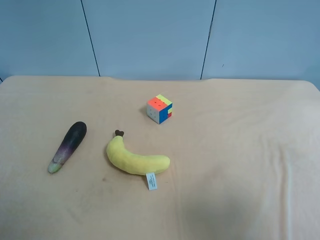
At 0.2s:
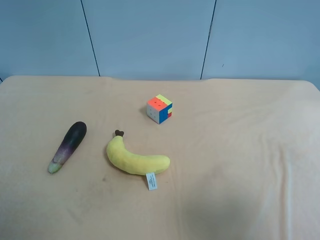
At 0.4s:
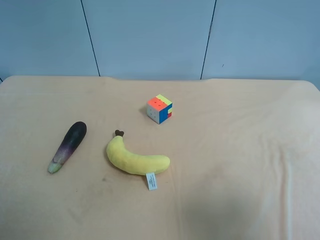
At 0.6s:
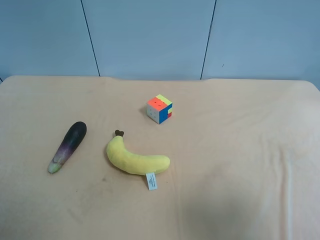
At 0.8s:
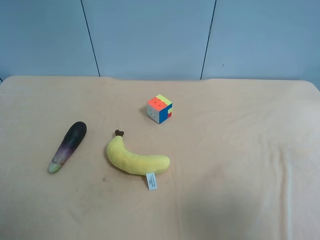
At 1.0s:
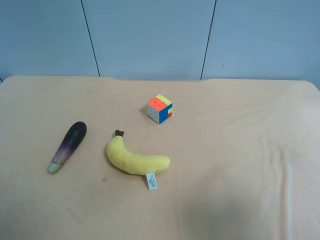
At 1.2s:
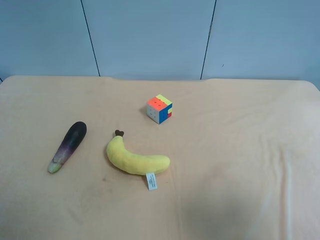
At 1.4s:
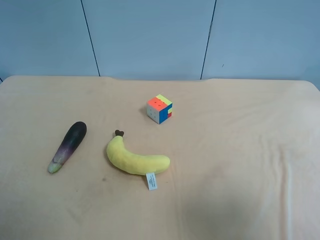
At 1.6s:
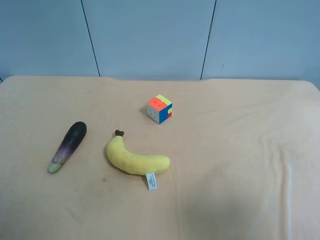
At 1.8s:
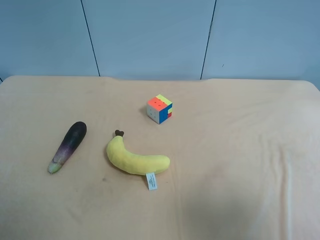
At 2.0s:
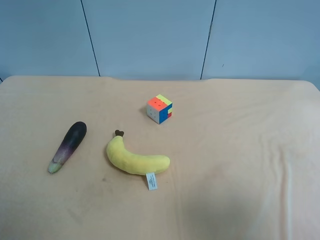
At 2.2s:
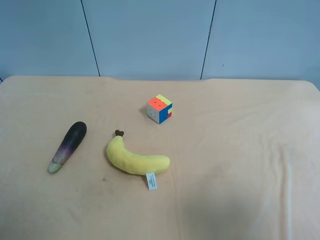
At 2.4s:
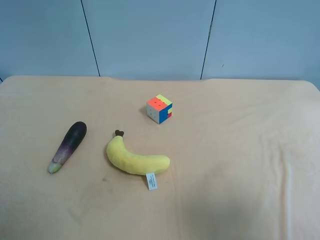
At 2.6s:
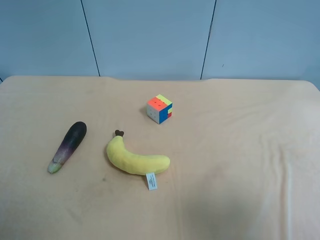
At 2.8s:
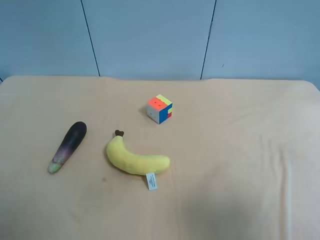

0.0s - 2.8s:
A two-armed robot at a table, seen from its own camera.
Task of the whole recording: use the right gripper to pick up the item and transfer it from the right gripper to the left gripper.
1.4s - 2.8s: The two grippers keep their place.

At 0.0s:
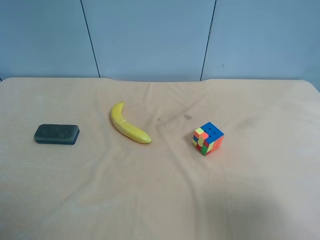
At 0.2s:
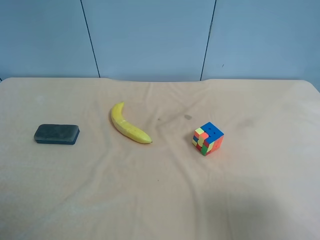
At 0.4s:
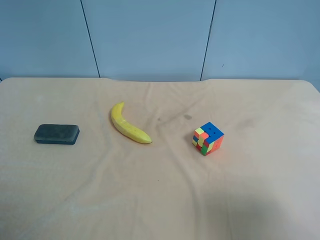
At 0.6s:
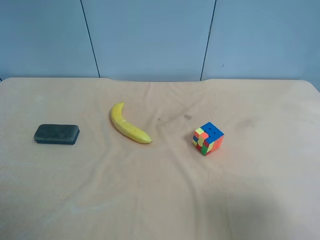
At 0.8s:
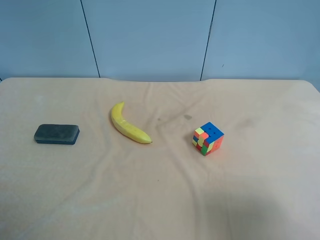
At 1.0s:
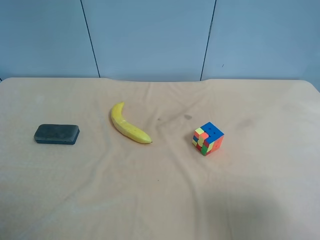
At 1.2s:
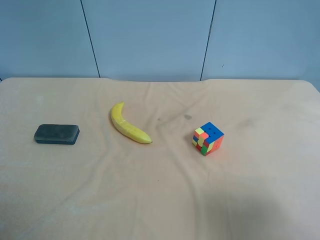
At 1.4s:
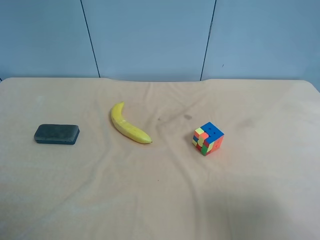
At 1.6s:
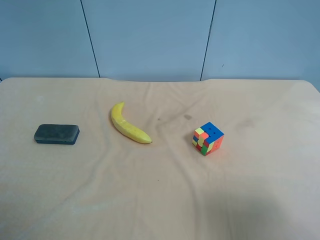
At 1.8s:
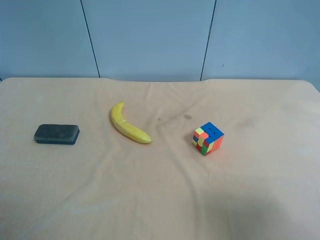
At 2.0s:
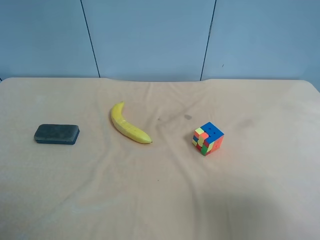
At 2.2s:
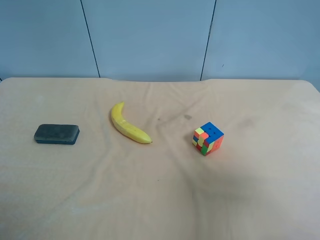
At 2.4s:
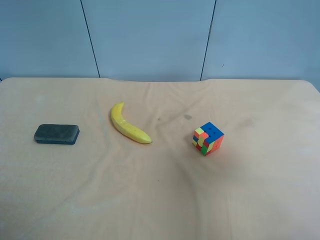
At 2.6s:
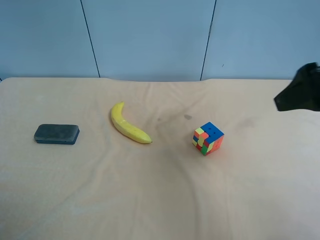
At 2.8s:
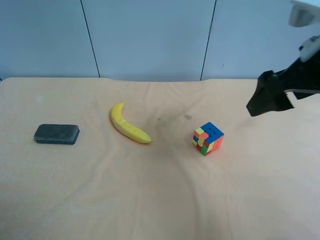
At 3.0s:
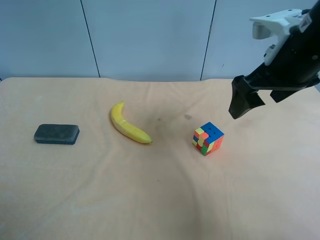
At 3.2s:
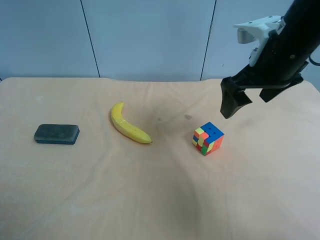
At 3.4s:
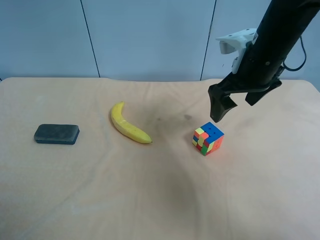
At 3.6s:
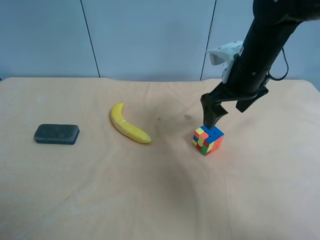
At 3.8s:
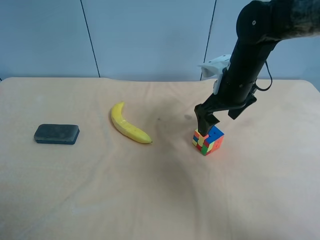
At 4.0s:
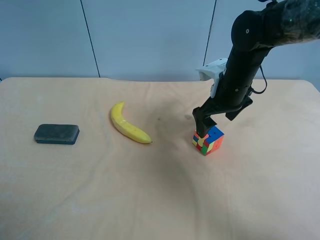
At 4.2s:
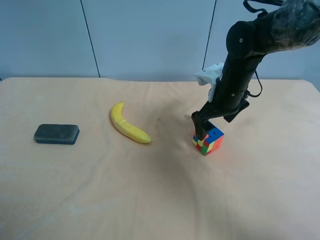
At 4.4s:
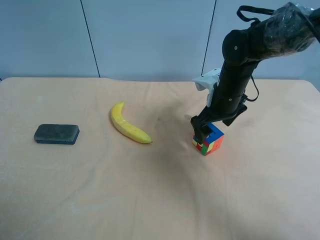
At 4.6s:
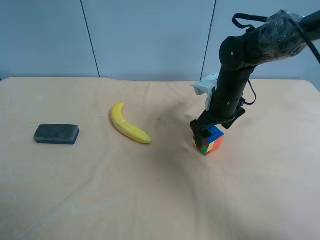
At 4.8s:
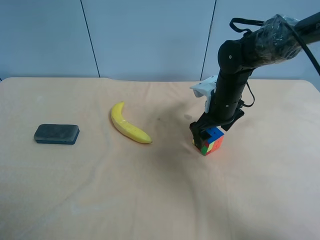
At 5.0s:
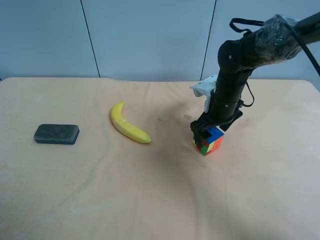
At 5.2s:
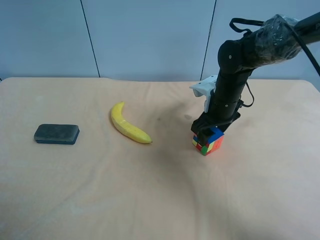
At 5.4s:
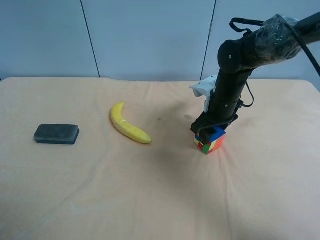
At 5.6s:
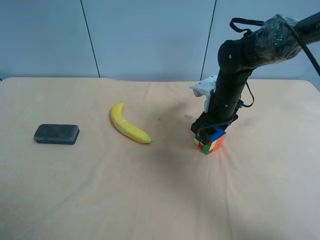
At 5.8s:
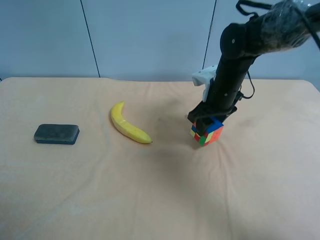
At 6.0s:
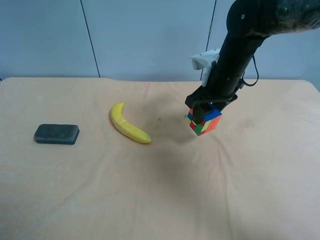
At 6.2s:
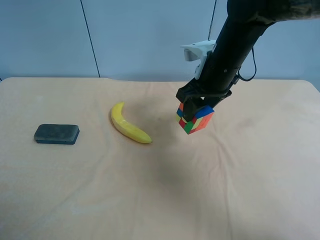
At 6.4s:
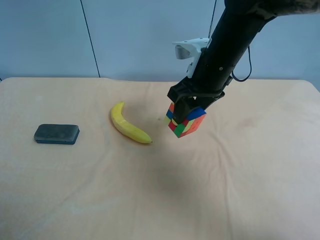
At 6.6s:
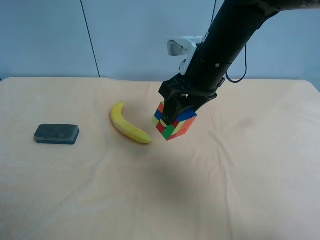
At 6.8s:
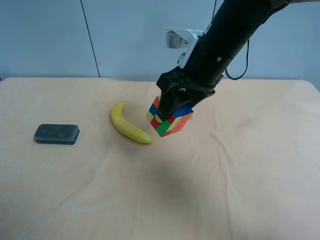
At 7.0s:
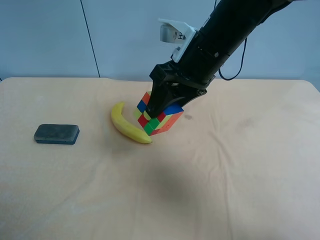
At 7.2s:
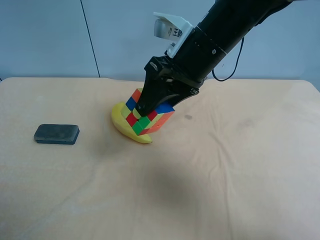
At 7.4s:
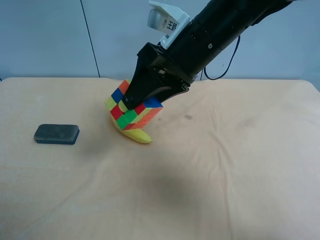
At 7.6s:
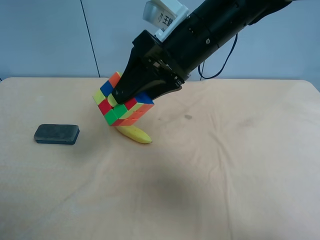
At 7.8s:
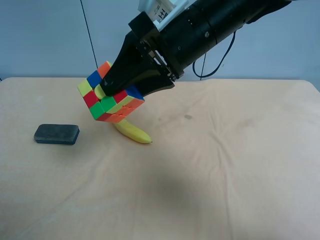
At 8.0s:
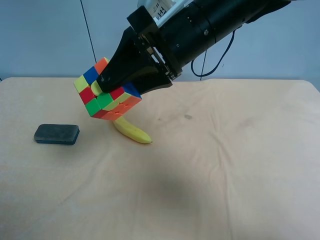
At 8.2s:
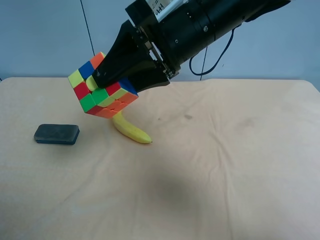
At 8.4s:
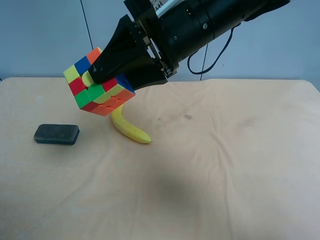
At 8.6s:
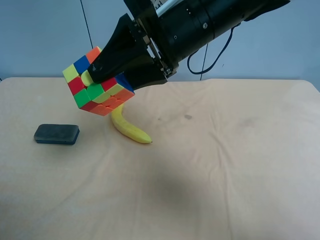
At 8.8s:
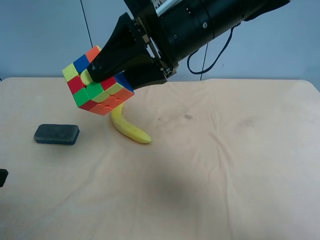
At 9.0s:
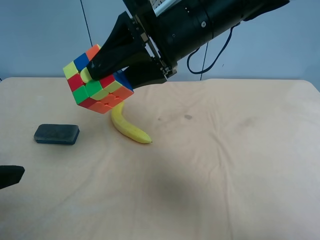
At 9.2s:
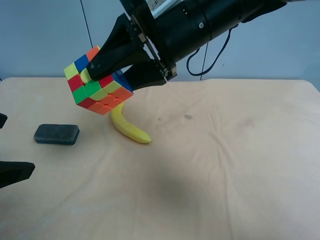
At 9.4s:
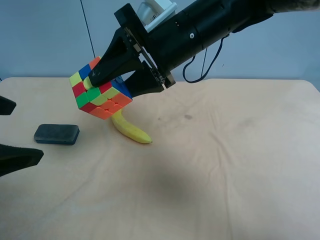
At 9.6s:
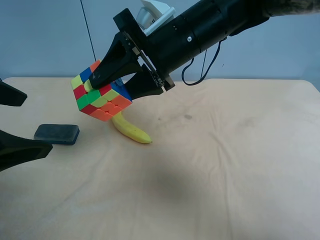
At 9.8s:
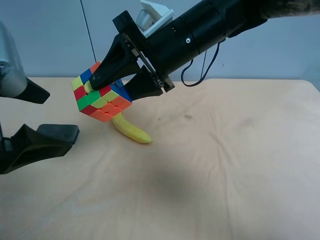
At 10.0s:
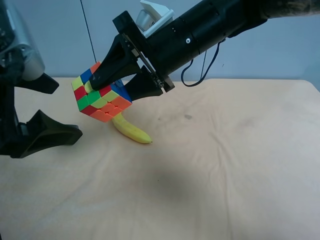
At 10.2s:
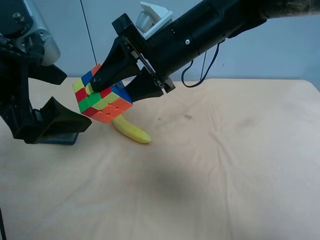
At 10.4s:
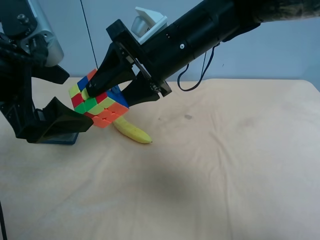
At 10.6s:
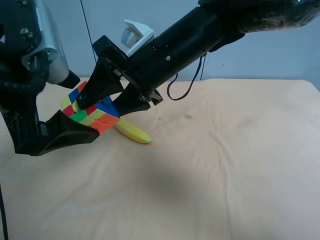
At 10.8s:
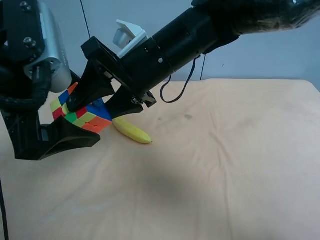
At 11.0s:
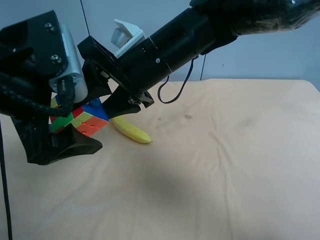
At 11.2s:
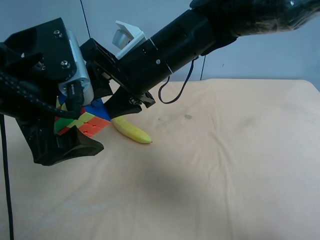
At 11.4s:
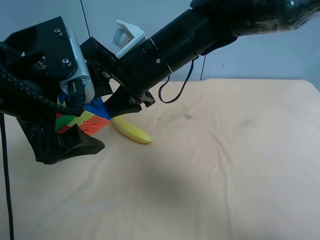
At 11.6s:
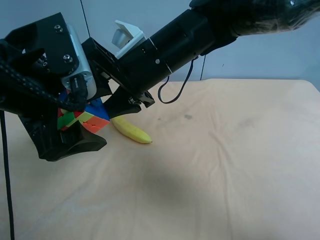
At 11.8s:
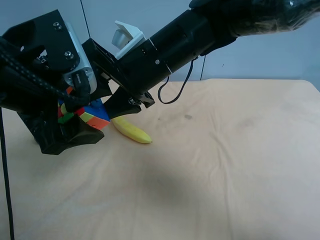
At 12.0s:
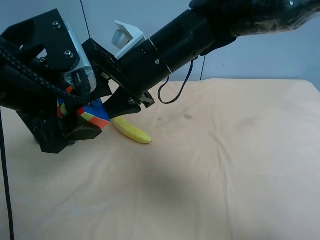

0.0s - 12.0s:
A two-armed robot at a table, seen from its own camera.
Task of the whole recording: use the right gripper to pick up the item and transfer it from the right gripper to the left gripper.
0.0s - 1.6s: Both grippers stay about where they are.
1.6s - 3.0s: The right gripper goes approximately 30 cm forward and to the left.
3.0s - 4.4s: The right gripper goes roughly 15 cm downward and forward.
4.4s - 6.0s: The right gripper travels upward by about 5 cm, and closes its fingers.
6.0s - 7.6s: The right gripper goes about 15 cm upward, to the left and backward.
7.6s - 9.0s: The left gripper travels forward by about 10 cm.
9.0s - 10.4s: The left gripper moves forward and to the right, approximately 10 cm.
10.4s - 12.0s: The left gripper closes.

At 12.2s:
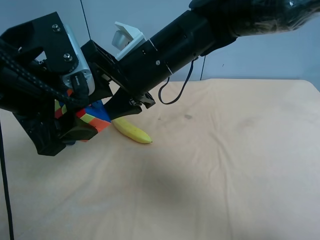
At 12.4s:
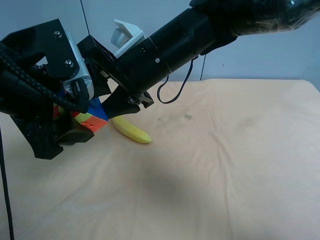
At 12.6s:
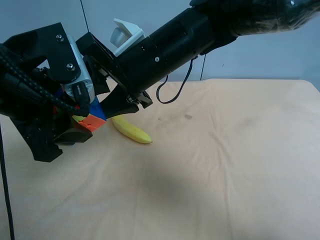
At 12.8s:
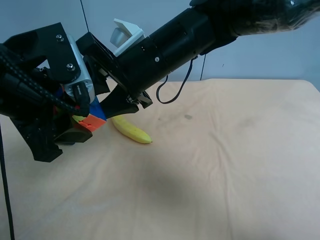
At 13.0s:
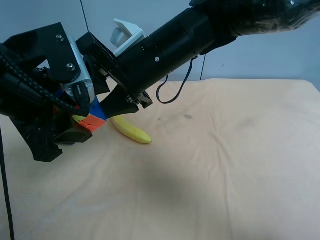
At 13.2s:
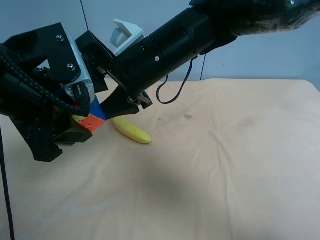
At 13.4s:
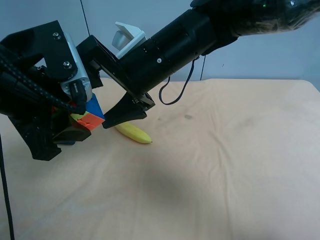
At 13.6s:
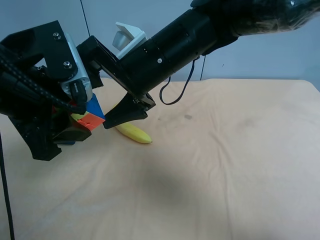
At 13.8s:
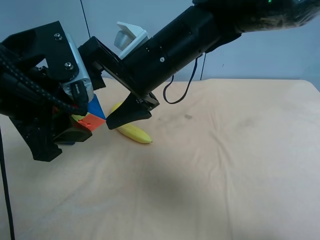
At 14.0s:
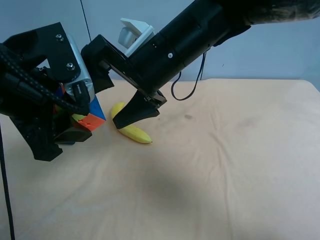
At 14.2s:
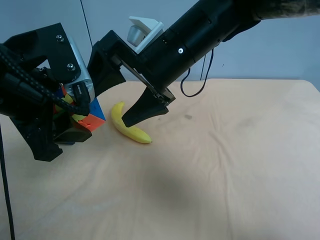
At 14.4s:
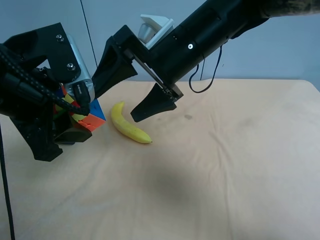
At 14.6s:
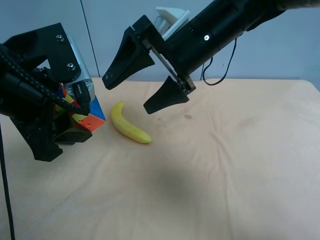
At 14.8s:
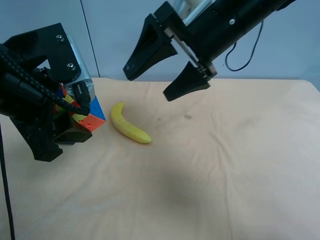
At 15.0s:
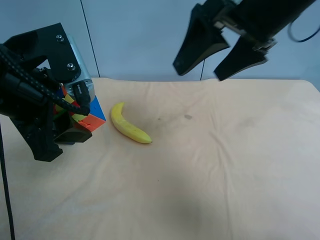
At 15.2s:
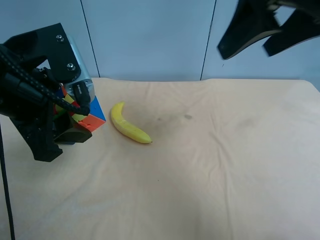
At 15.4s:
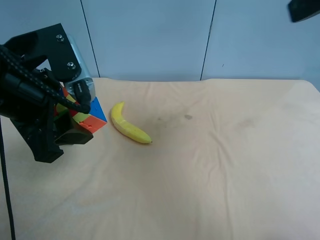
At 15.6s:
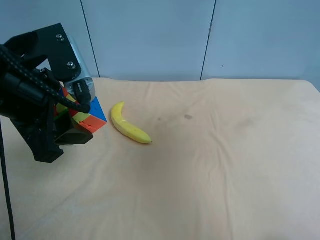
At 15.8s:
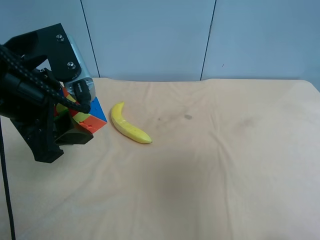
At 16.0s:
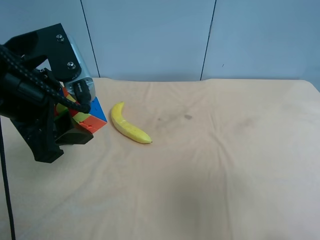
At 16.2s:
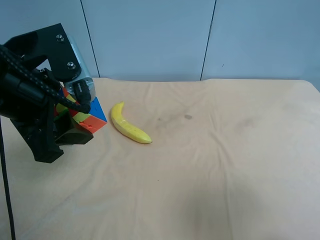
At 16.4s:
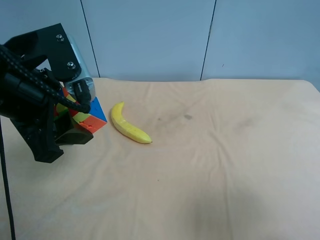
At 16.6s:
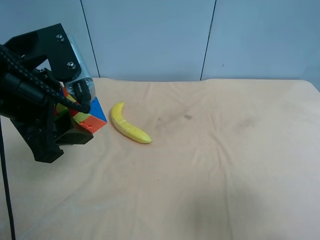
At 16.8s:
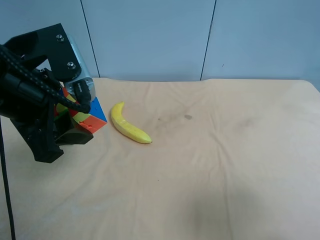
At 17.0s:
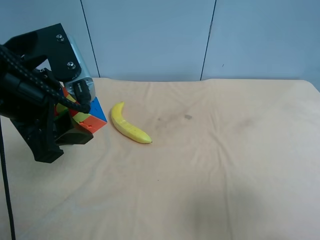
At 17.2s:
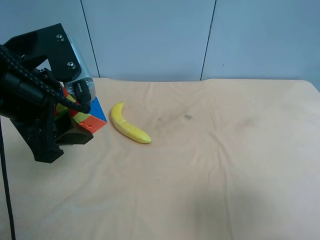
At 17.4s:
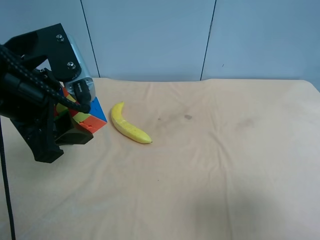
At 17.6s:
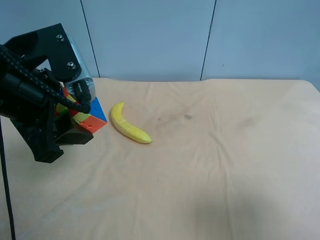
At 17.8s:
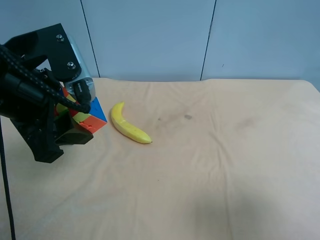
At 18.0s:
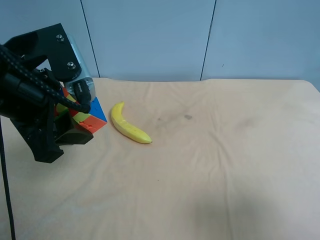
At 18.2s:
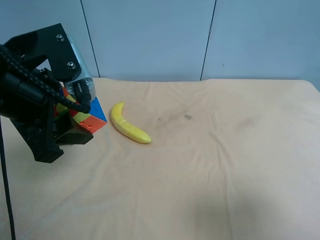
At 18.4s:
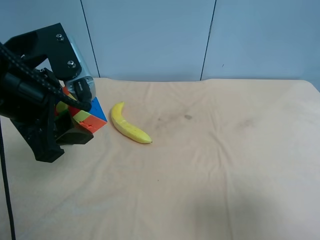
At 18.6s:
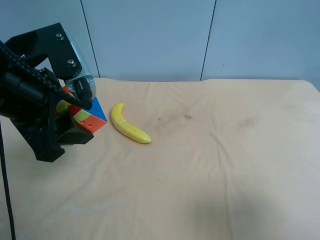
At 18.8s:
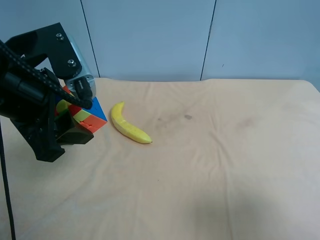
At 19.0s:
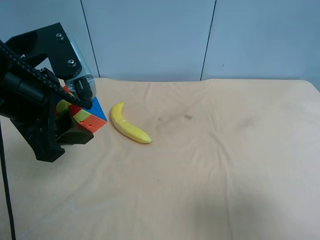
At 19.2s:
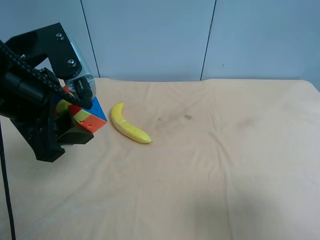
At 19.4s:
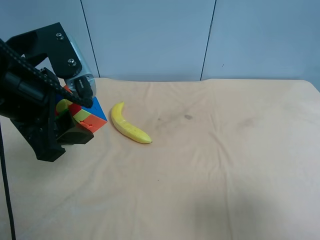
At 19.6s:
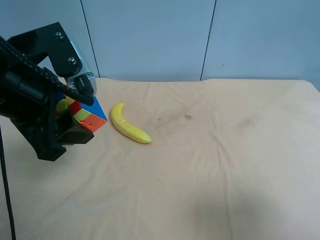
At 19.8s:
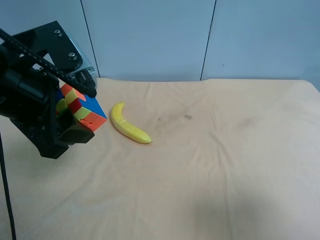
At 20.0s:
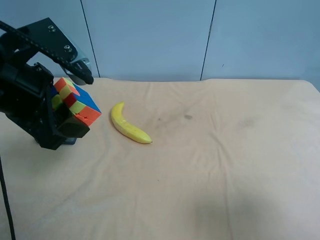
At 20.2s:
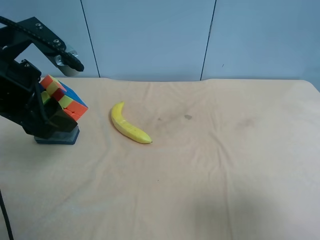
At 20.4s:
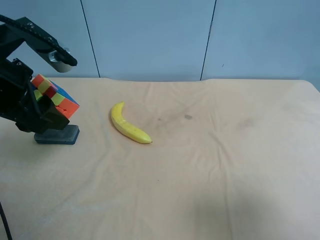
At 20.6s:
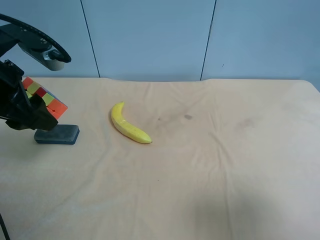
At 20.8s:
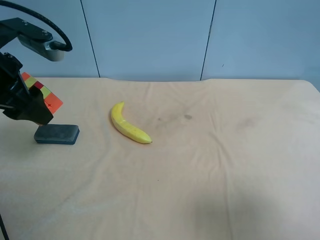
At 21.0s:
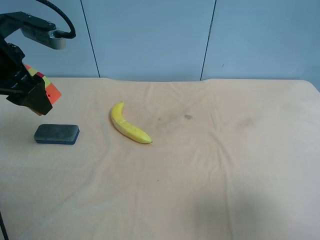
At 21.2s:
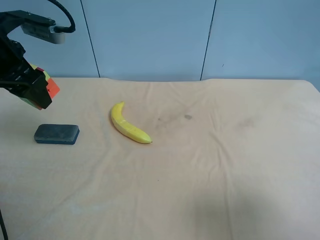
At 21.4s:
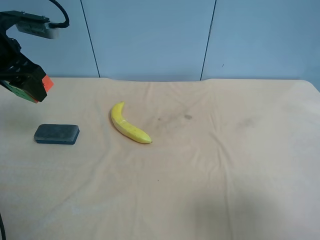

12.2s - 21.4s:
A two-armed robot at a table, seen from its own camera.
Task of the whole recording: use the right gripper to pick up the item and transfer it from the right gripper to the left gripper.
12.2s - 13.8s: The right gripper opens its fingers.
13.8s - 15.2s: The right gripper heads to the right and upward, covering roughly 20 cm.
15.2s - 16.8s: The right gripper goes about 25 cm backward, downward and to the right.
18.4s - 19.8s: The grippers move only a little.
19.8s - 21.4s: The left gripper goes roughly 20 cm forward and to the left.
